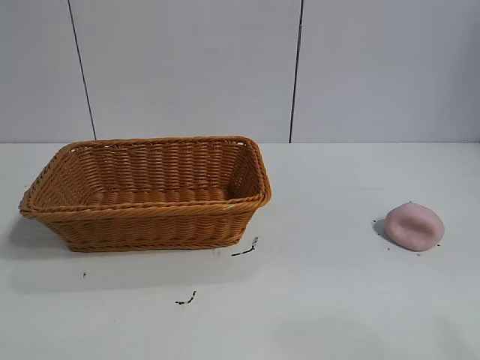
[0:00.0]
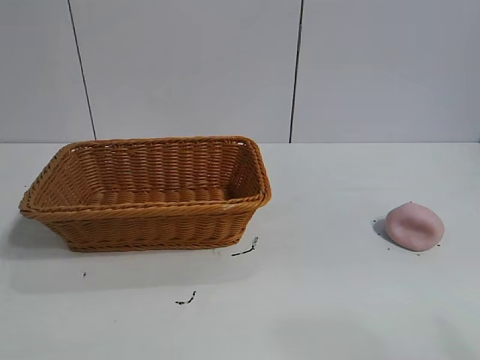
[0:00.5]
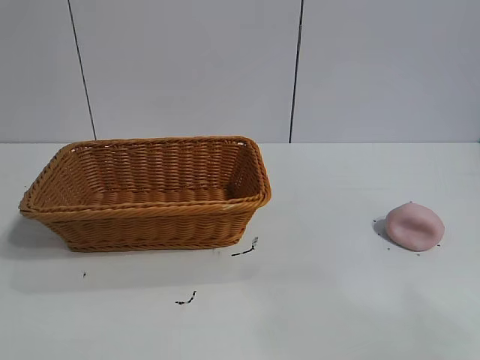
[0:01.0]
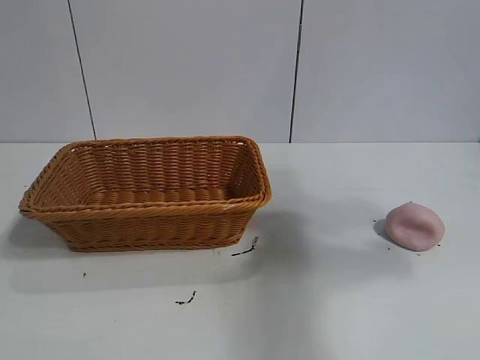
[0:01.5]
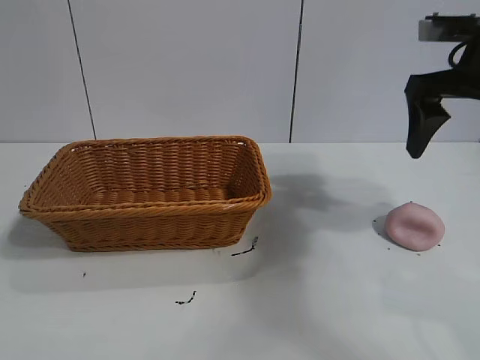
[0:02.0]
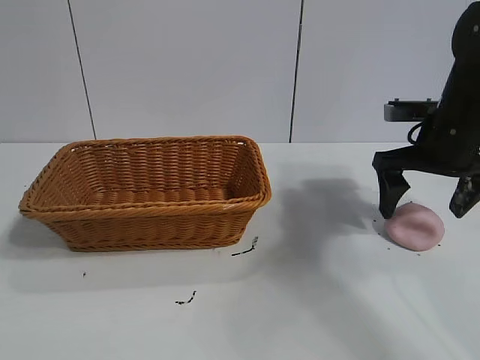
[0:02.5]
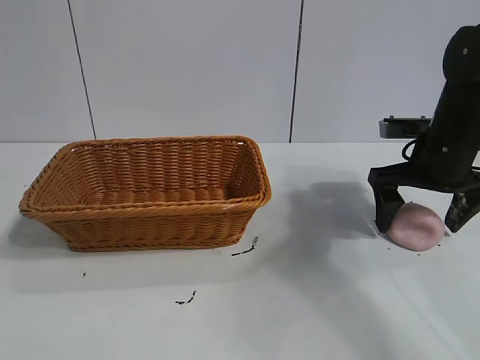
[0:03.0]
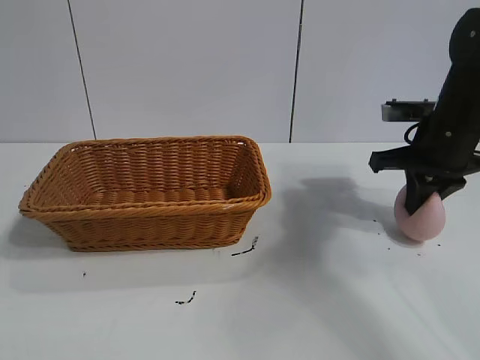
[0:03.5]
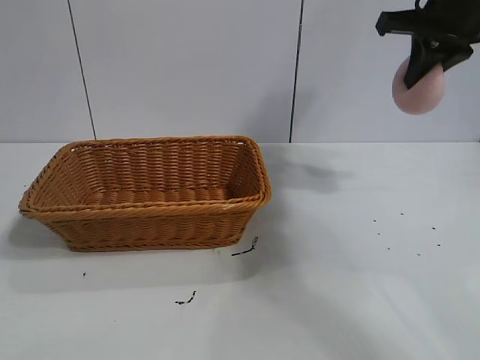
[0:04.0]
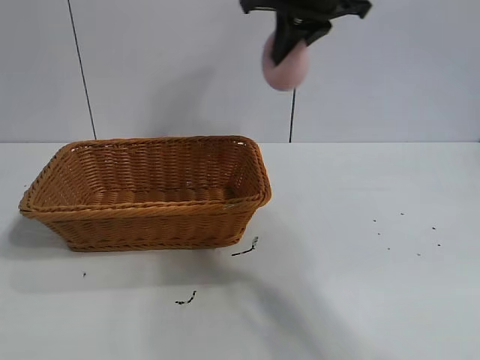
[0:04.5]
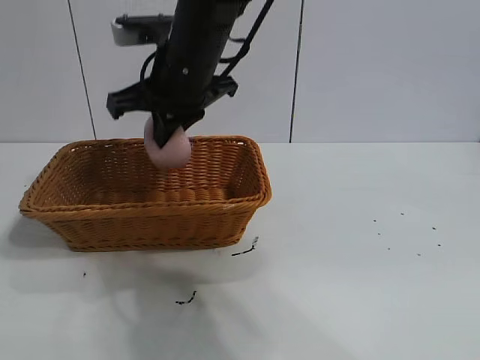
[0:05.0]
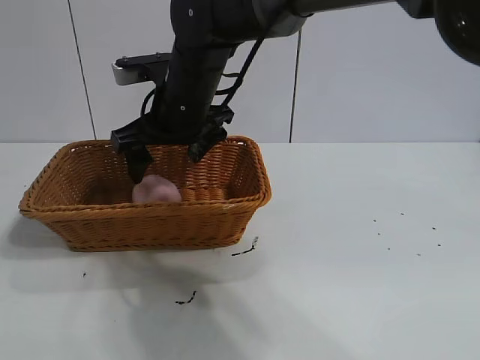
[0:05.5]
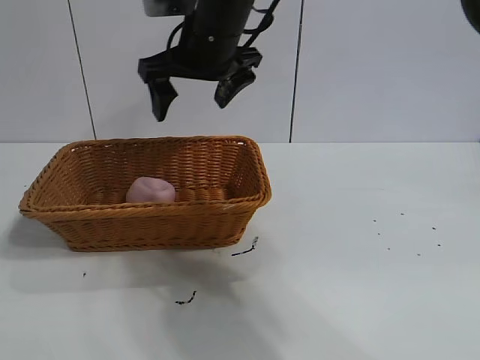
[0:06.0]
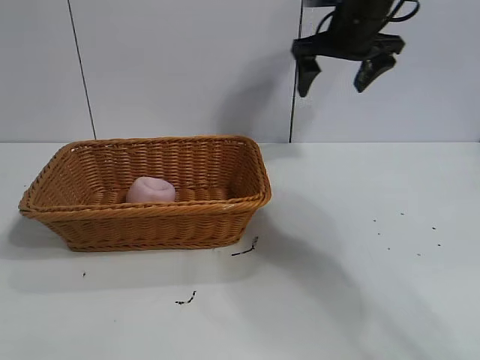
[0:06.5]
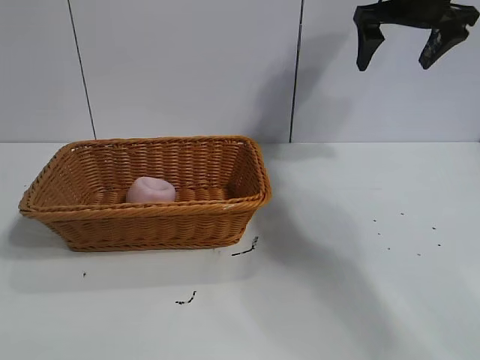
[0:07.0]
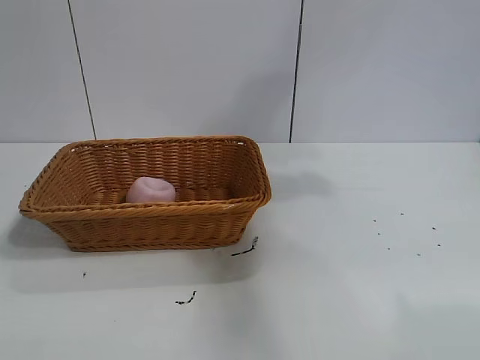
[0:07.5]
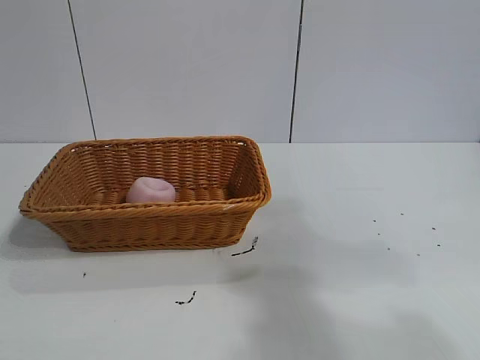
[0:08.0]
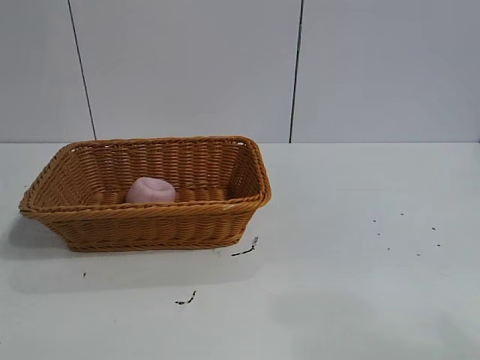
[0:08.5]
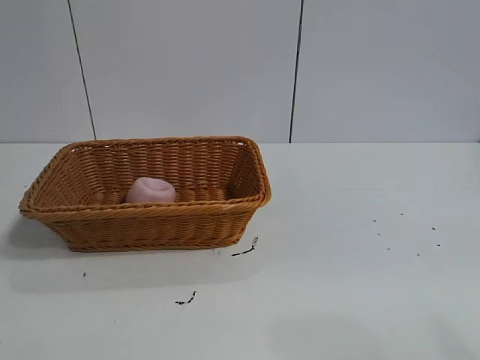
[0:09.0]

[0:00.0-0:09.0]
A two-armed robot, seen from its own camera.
Task of the whole recording: pick up the peach and put it into the basket.
Step, 0:01.0 to 0:03.0: Grasp the peach with right gripper.
Step, 0:03.5 to 0:05.5: Place the peach in the basket with right gripper.
